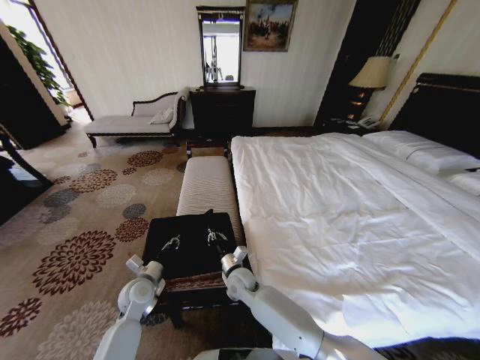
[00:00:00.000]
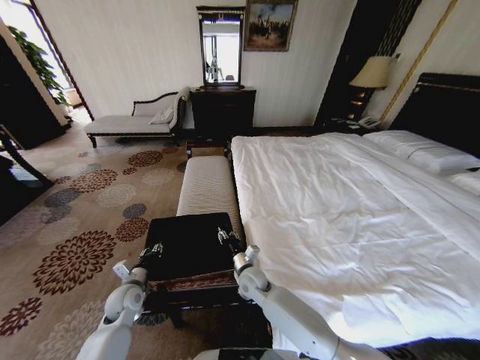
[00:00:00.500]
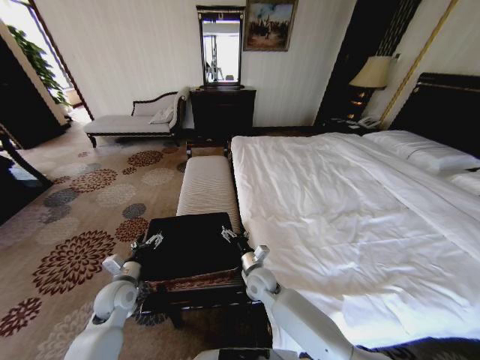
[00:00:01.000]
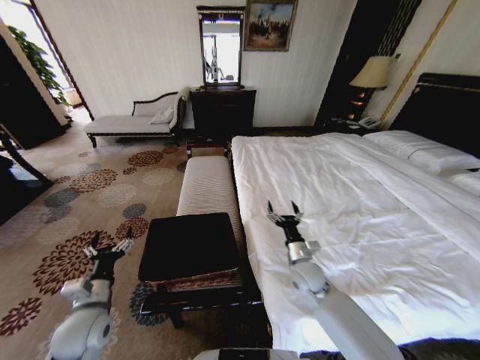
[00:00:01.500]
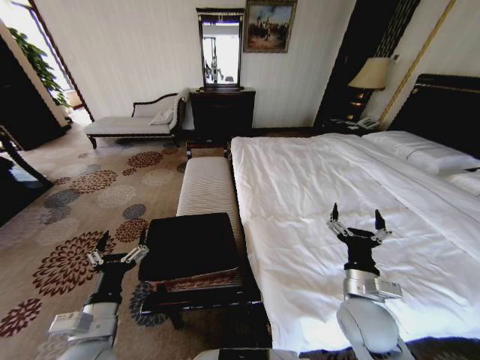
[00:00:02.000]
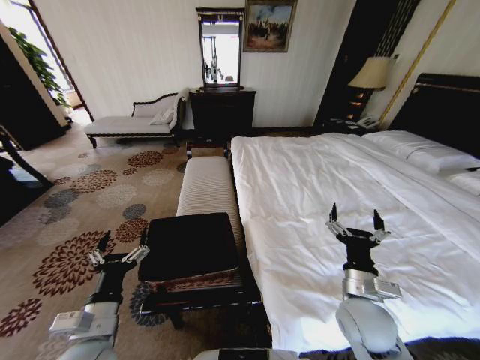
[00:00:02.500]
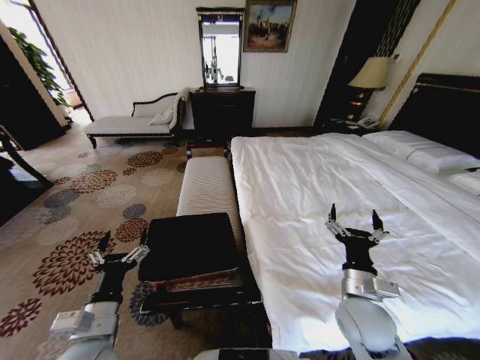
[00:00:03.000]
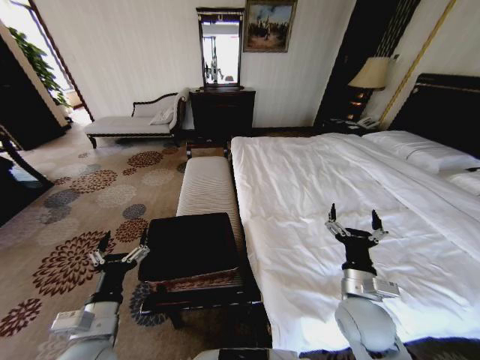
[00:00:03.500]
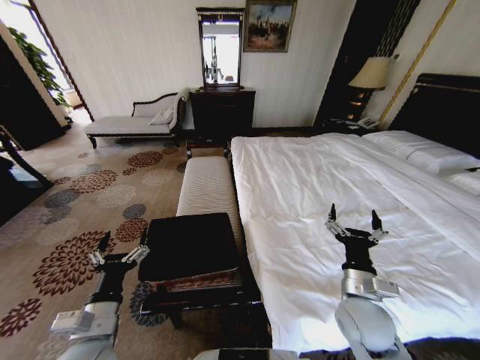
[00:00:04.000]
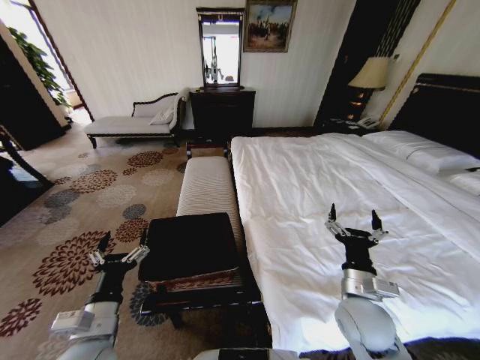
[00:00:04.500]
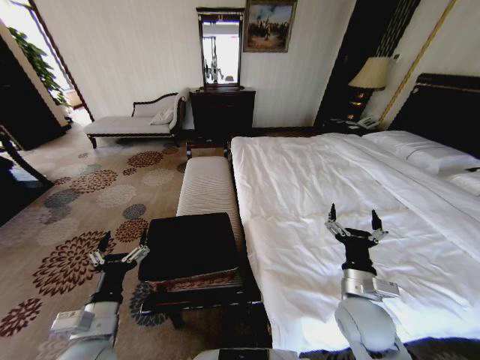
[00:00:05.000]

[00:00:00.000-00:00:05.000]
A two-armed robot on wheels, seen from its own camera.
Task of the whole recording: Fold the clothes on the bed and place them into the basket.
00:00:00.000 to 00:00:02.500: The right gripper shifts approximately 30 cm to the right, upward and backward, and opens. The left gripper heads backward and upward, covering some 20 cm, and opens.
00:00:02.500 to 00:00:05.000: Neither gripper changes place.
